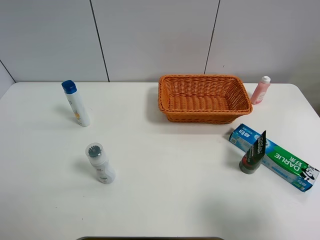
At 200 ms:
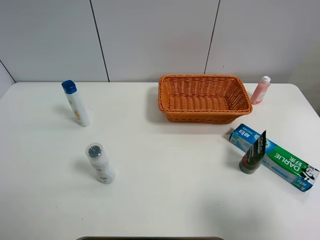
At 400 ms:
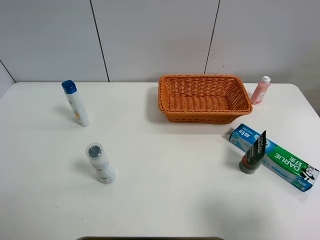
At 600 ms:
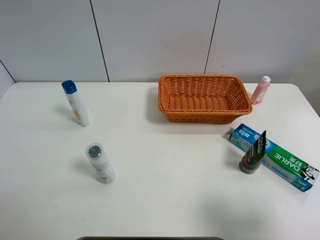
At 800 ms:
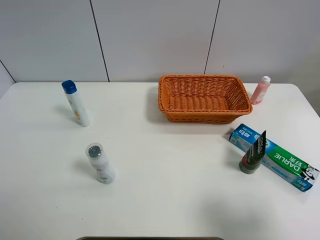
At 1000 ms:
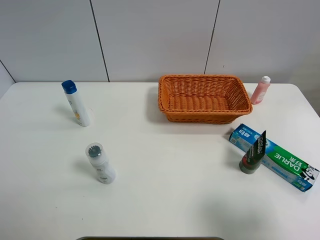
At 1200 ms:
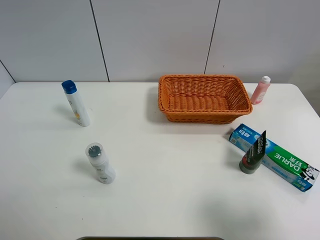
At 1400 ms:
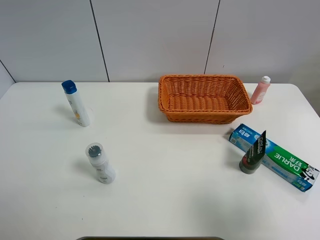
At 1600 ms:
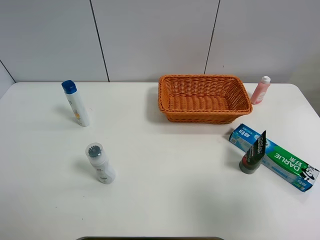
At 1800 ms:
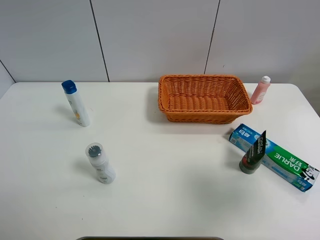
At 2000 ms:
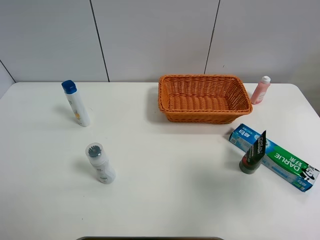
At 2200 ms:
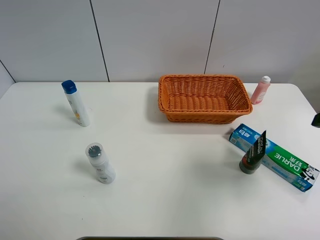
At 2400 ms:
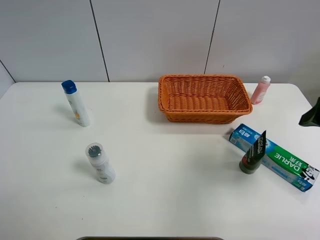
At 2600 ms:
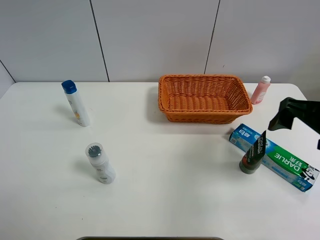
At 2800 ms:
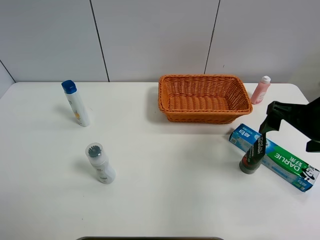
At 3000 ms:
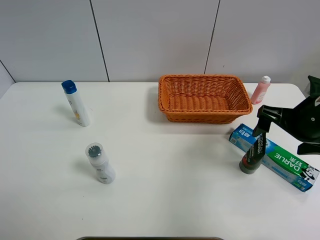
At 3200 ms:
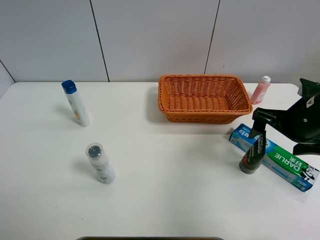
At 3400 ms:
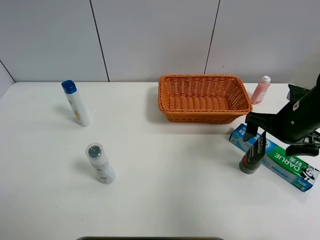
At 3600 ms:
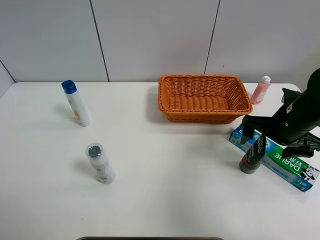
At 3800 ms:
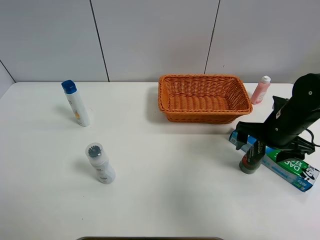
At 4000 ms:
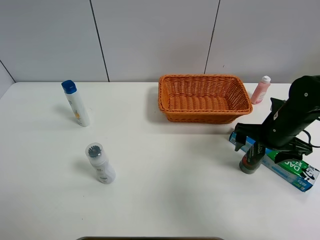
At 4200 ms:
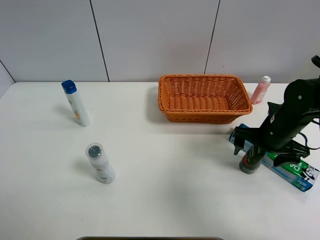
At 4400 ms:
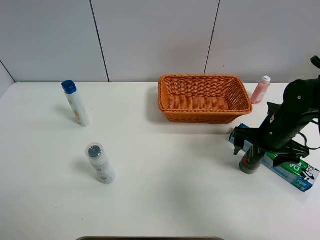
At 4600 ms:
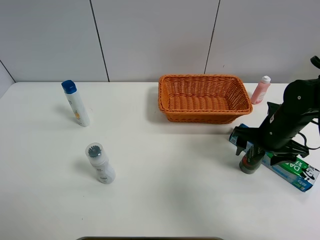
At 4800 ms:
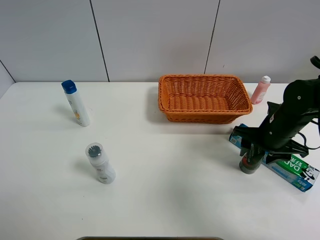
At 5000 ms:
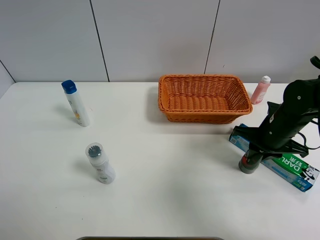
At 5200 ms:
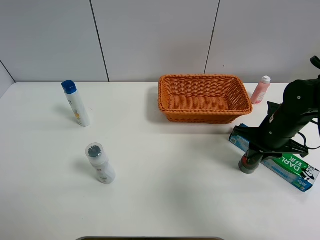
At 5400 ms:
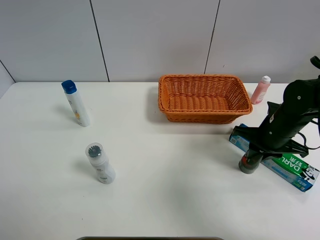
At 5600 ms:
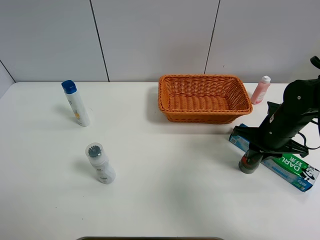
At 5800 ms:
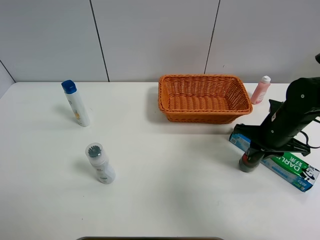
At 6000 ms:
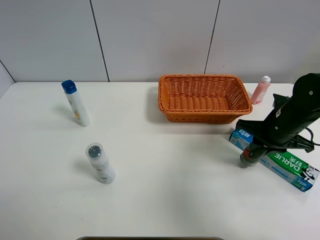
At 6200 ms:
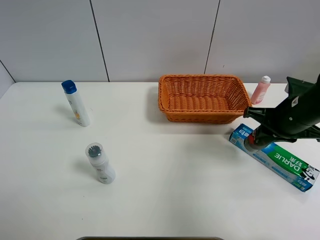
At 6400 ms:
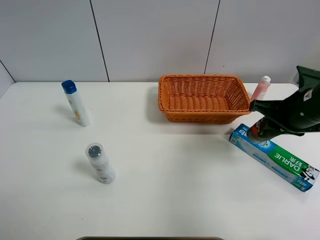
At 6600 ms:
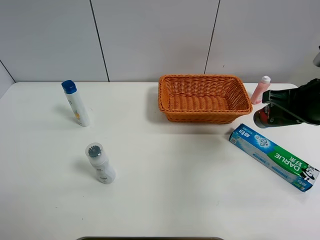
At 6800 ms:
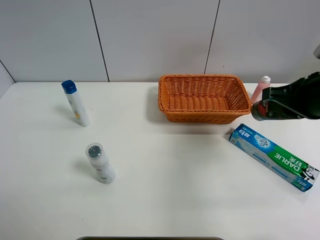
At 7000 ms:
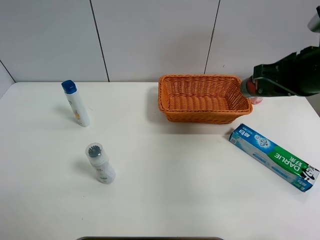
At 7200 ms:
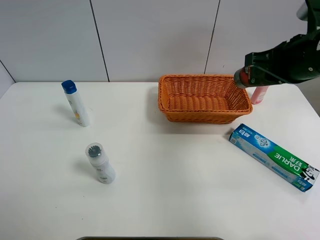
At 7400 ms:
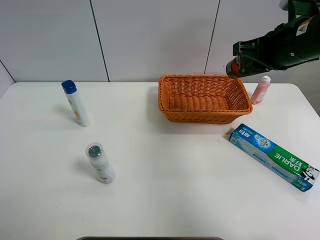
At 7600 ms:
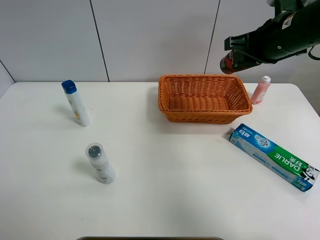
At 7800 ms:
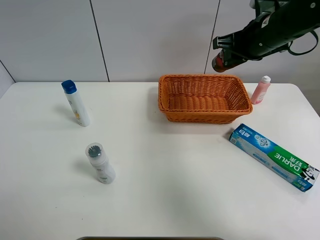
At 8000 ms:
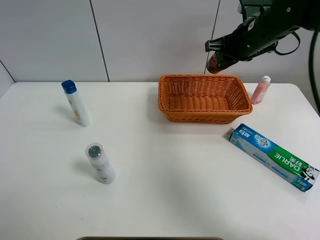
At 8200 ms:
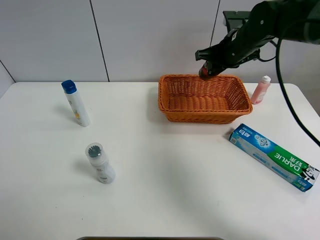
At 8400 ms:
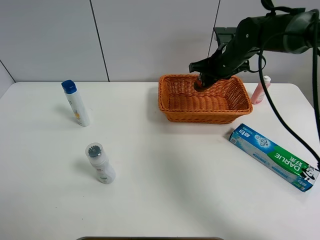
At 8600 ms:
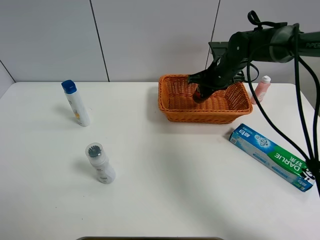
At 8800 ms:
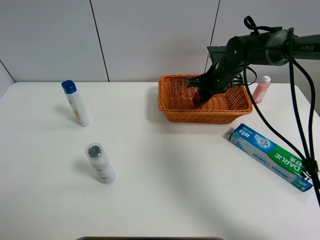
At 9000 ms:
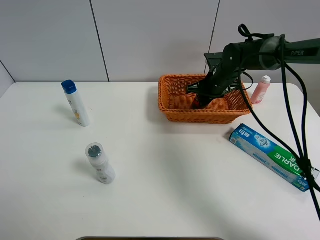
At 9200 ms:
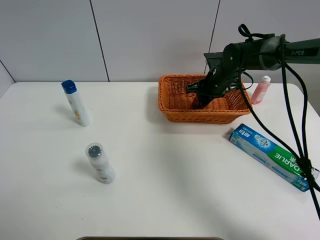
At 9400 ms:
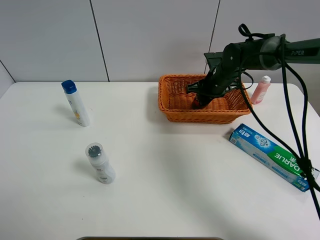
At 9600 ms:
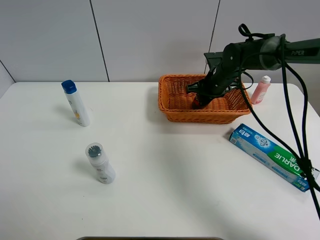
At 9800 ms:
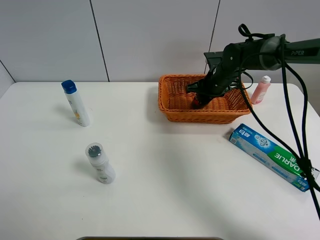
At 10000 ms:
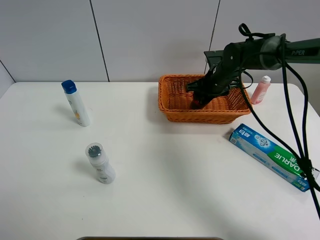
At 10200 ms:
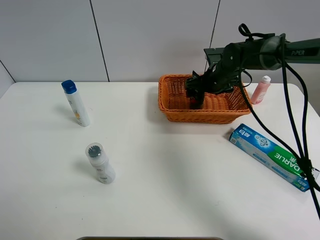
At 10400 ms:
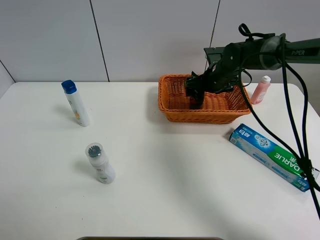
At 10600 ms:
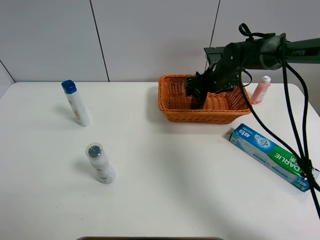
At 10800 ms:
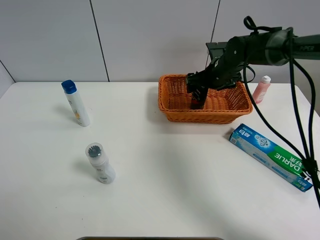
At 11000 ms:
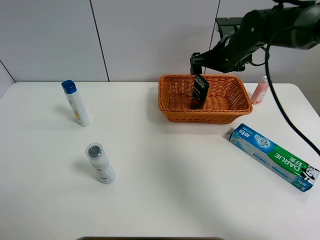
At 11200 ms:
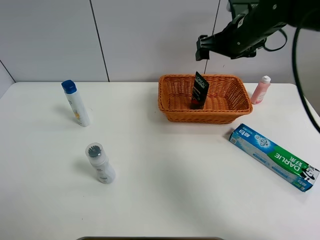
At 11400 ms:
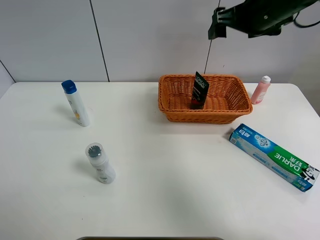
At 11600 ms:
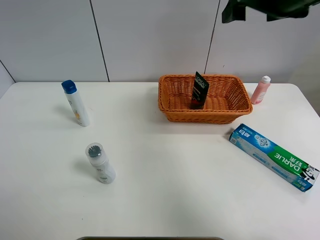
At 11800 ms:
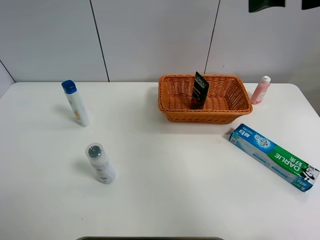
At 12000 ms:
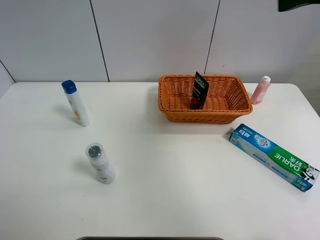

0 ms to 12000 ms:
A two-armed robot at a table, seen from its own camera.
Task of the whole recording: Place the object closest to the toothpaste in the basket.
Step, 0 ms to 5000 ms: Grasp the soft facial cleanser with right gripper.
Step, 5200 ms to 11000 ms: Place the soft facial cleanser in the basket with right gripper.
0 ms to 1600 ms: The right gripper shifts about 5 cm upward.
1600 ms to 3000 ms: The right gripper travels forward and downward by about 25 cm.
3000 ms to 4400 ms: The right gripper shifts about 10 cm downward.
4400 ms to 6000 ms: The right gripper closes.
6000 ms to 7600 ms: The right gripper shifts some 15 cm upward and forward.
7600 ms to 9000 ms: The right gripper is displaced downward and forward by some 20 cm.
9000 ms to 10400 ms: The right gripper opens its fingers.
10400 ms to 12000 ms: The right gripper shifts roughly 40 cm upward and backward.

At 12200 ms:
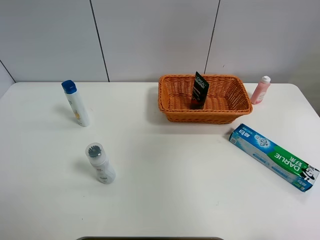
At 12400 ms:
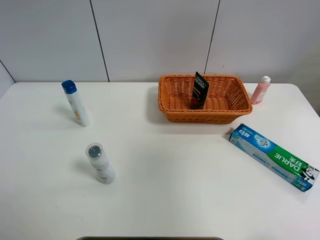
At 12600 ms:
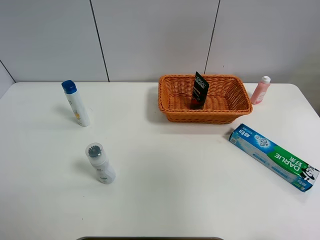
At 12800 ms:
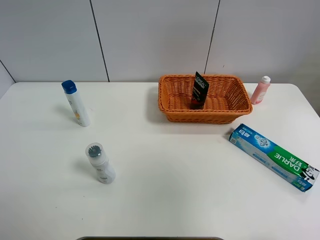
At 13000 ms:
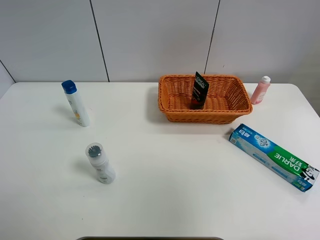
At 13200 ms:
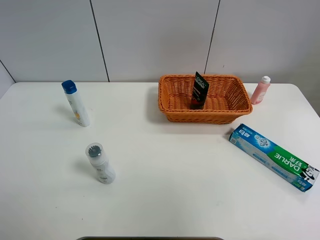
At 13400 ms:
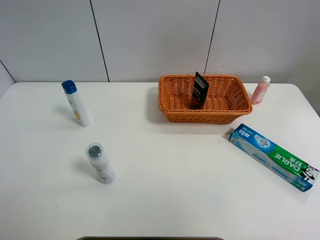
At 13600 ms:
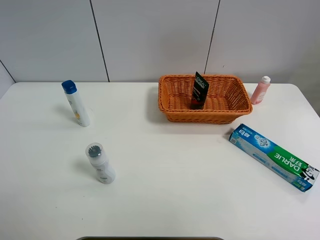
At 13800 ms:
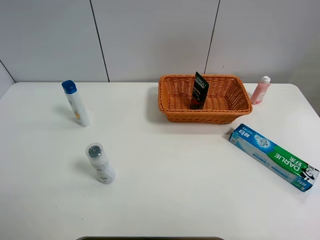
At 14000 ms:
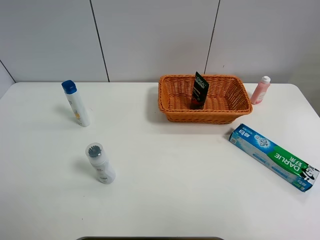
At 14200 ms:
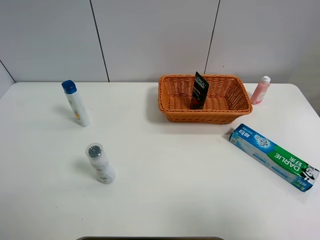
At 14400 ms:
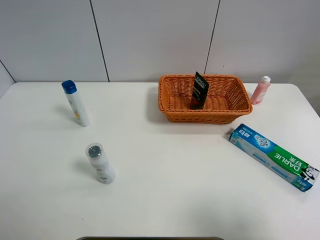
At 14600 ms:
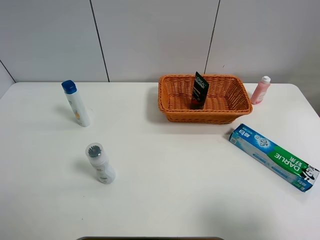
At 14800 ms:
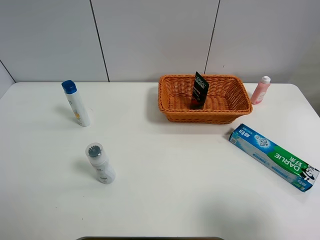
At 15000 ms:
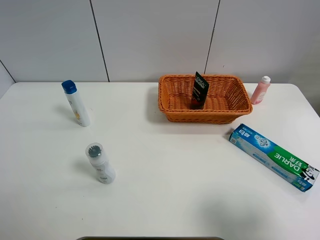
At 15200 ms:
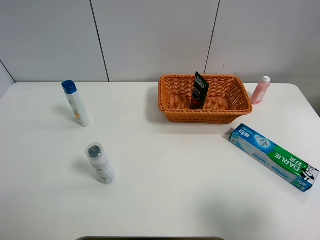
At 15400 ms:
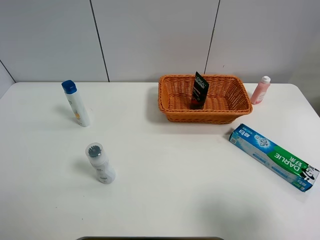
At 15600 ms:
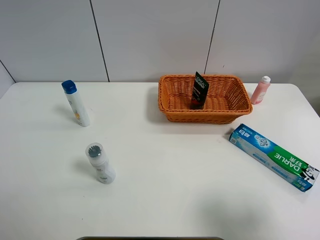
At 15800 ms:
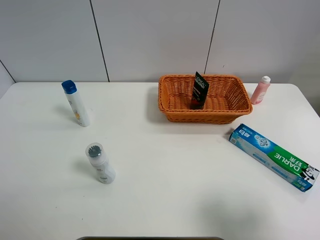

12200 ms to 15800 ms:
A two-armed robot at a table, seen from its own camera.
Task of the whole recording: Place the object closest to the toothpaste in the basket.
12200 ms to 14000 ms: The right gripper heads backward, covering some 20 cm.
14000 ms to 15800 ms: The right gripper shifts some 15 cm downward and forward.

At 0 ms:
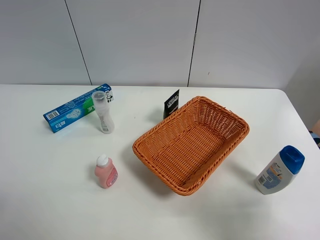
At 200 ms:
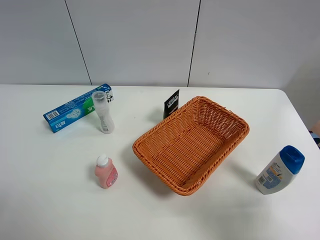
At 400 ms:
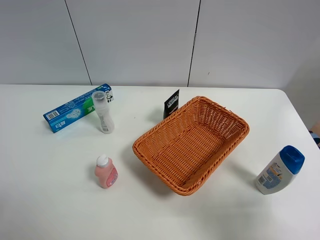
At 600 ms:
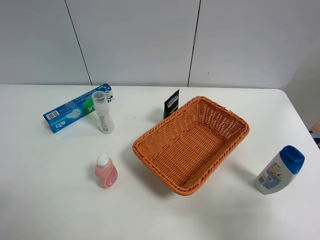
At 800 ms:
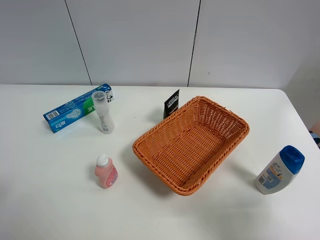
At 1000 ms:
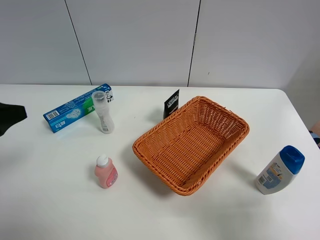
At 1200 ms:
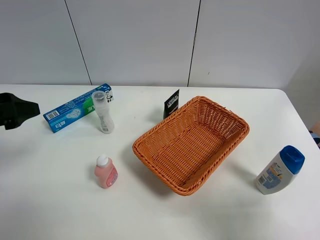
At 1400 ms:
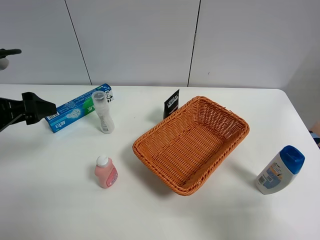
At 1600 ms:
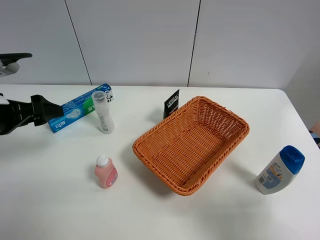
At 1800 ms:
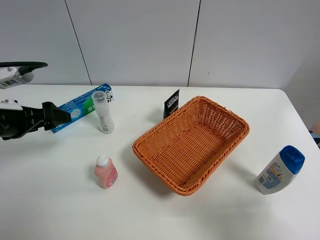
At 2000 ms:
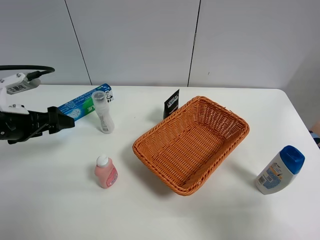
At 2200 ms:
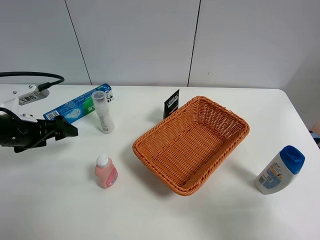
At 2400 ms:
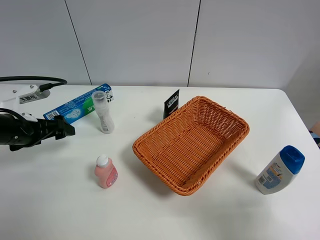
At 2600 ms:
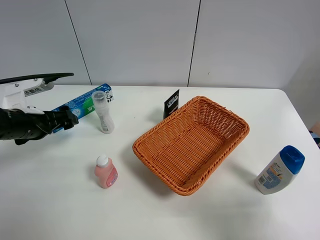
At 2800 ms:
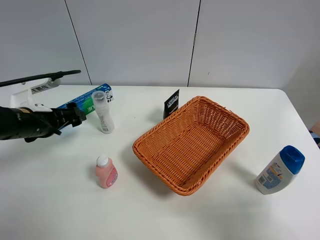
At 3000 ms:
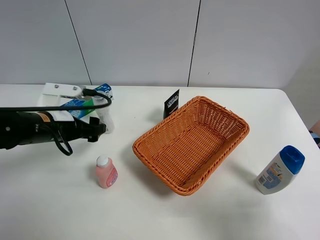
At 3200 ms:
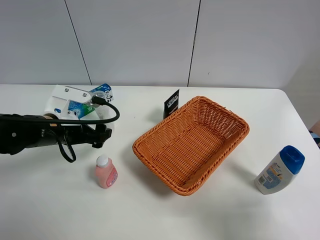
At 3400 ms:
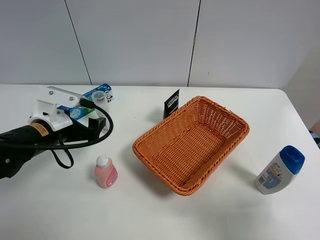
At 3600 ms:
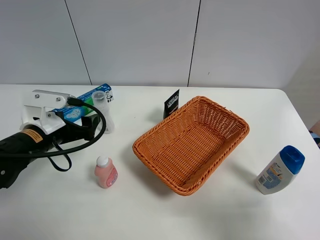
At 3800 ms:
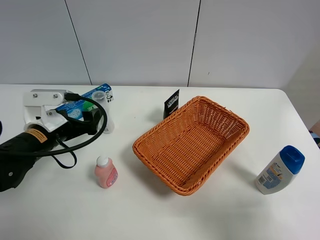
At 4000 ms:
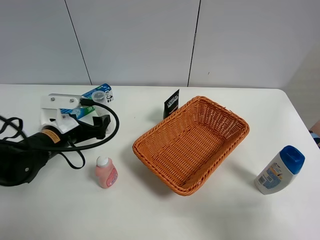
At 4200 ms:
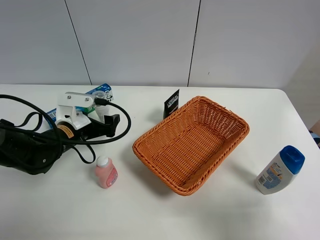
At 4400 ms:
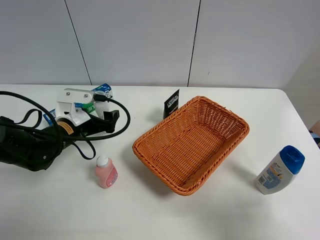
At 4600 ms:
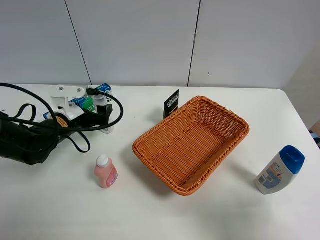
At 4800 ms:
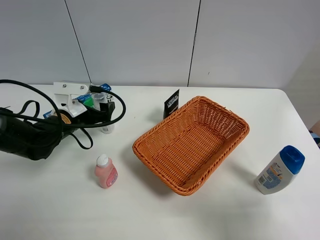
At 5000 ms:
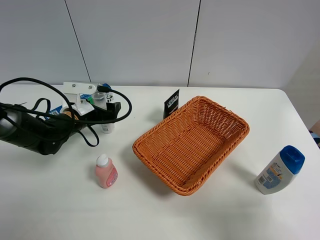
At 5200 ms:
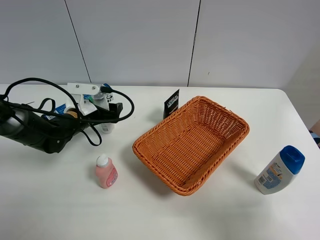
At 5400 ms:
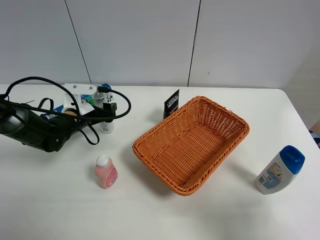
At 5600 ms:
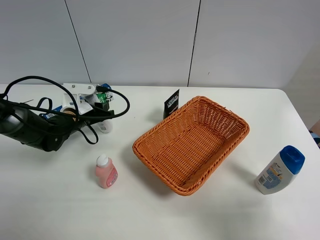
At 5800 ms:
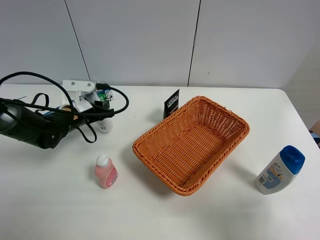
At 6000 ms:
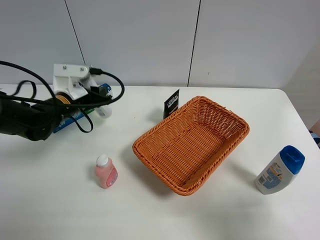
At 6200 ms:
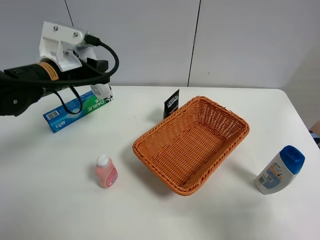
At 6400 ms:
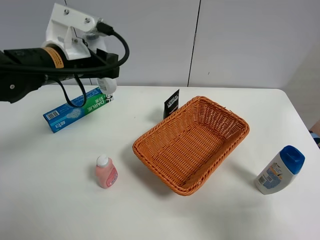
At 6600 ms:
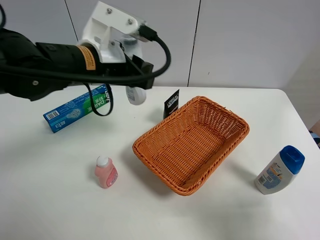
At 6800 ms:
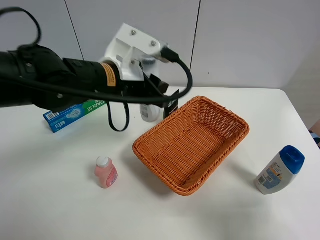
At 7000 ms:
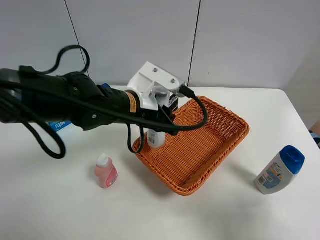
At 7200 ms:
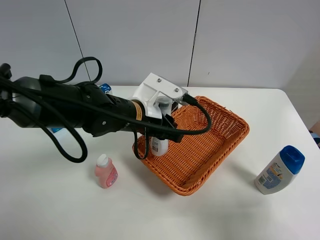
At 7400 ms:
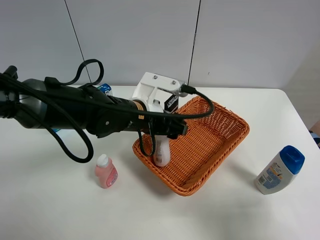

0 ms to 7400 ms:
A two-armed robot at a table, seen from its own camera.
Task of the whole recording: Place the object closest to the toothpaste in the basket.
Step, 0 ms to 5800 ms: Grasp the cleaning agent with left gripper.
0 ms to 1400 ms: The left gripper is displaced forward by approximately 20 cm.
1400 ms to 3000 ms: The left gripper heads to the right and downward, covering approximately 10 cm.
3000 ms to 4400 ms: The left gripper ends up approximately 5 cm from where it was.
4400 ms to 6000 ms: The left gripper is displaced upward by roughly 5 cm, and closes its fingers.
6000 ms to 7400 ms: The left gripper travels to the right by some 15 cm, and opens its fingers.
